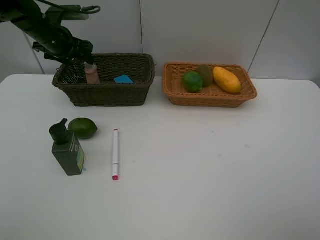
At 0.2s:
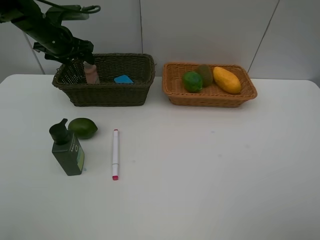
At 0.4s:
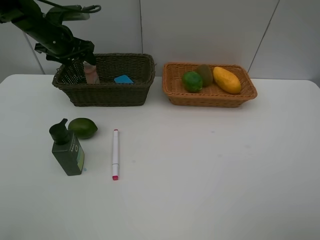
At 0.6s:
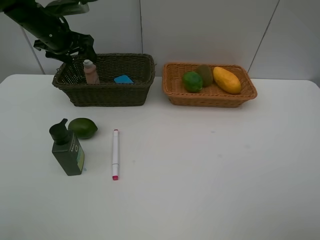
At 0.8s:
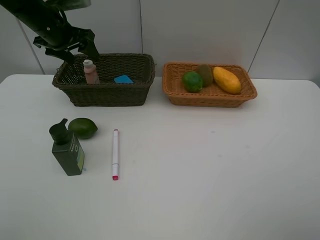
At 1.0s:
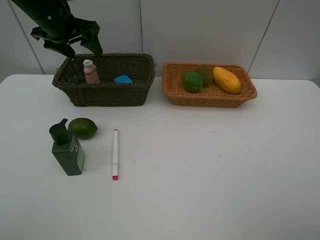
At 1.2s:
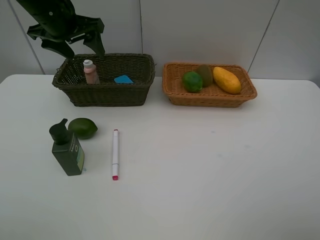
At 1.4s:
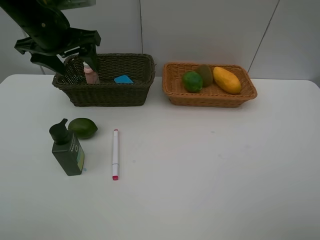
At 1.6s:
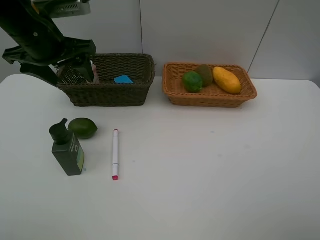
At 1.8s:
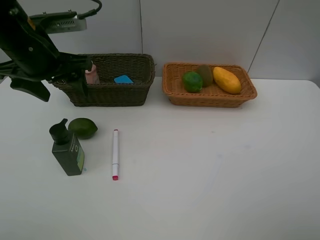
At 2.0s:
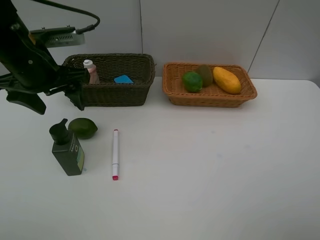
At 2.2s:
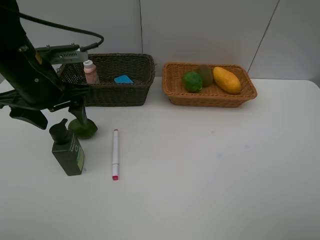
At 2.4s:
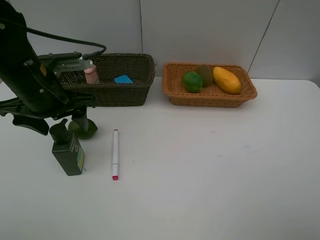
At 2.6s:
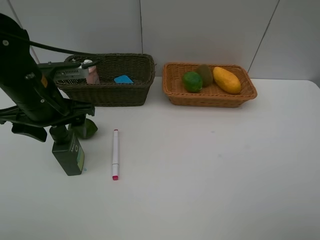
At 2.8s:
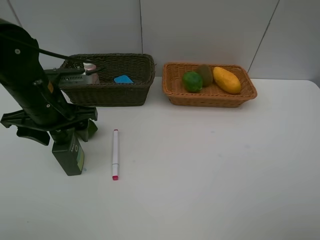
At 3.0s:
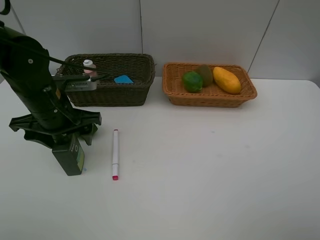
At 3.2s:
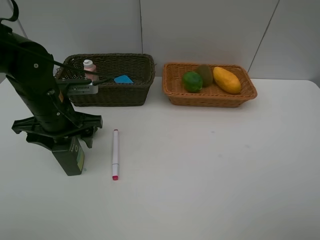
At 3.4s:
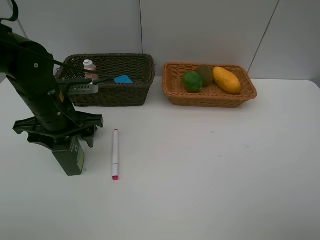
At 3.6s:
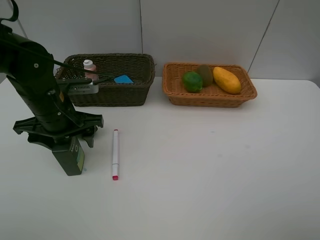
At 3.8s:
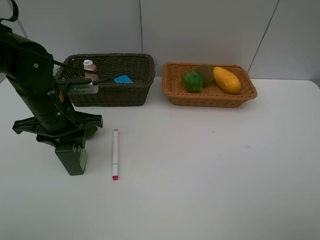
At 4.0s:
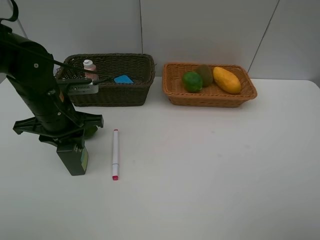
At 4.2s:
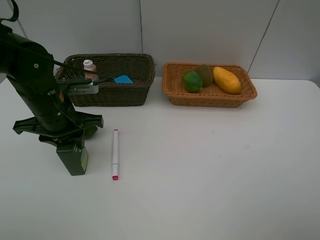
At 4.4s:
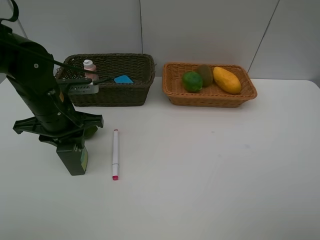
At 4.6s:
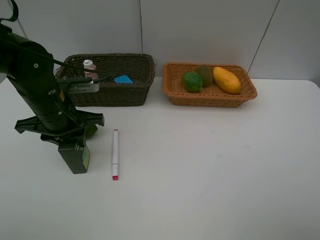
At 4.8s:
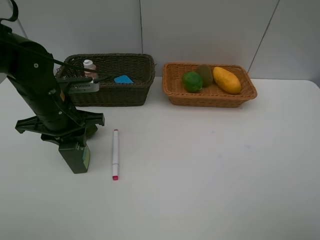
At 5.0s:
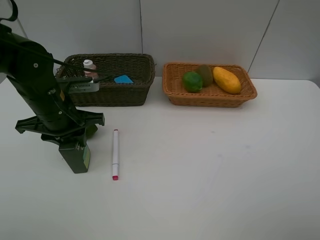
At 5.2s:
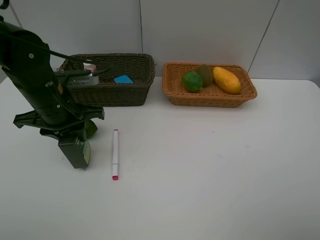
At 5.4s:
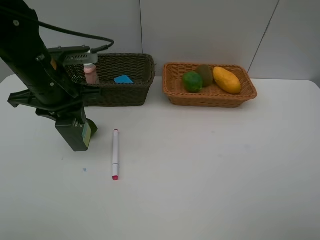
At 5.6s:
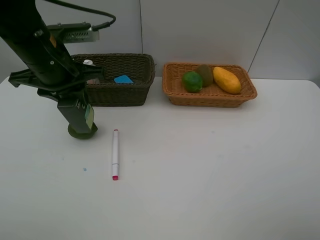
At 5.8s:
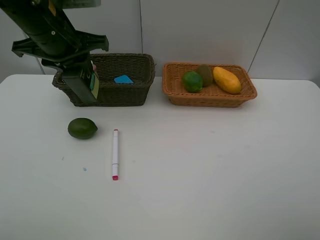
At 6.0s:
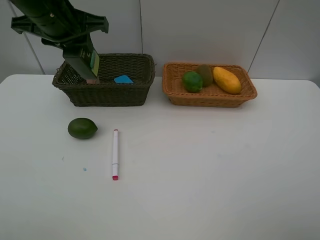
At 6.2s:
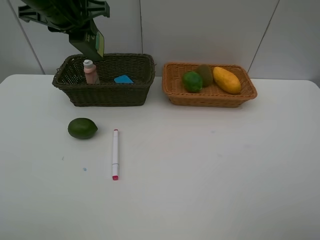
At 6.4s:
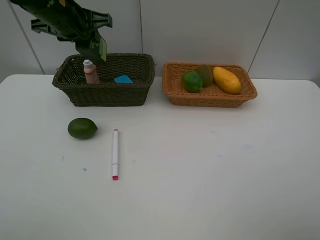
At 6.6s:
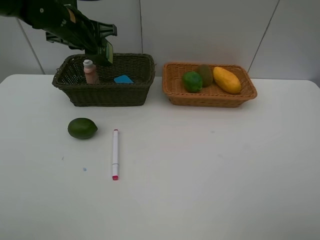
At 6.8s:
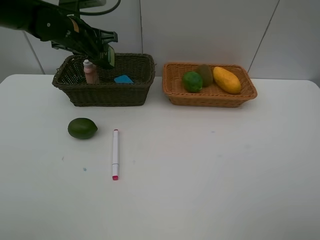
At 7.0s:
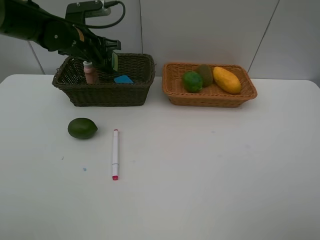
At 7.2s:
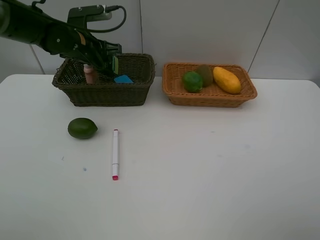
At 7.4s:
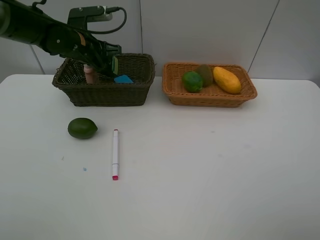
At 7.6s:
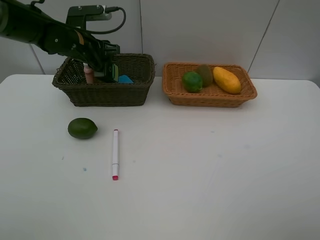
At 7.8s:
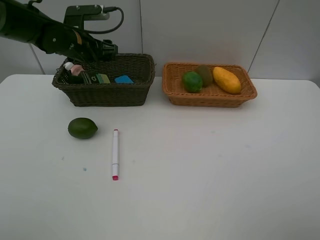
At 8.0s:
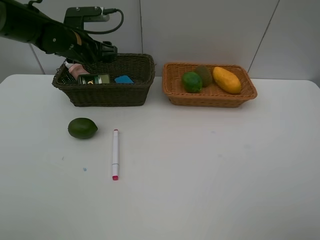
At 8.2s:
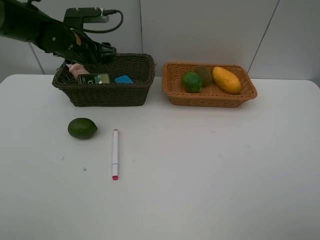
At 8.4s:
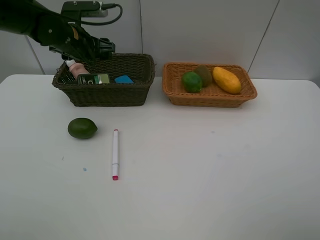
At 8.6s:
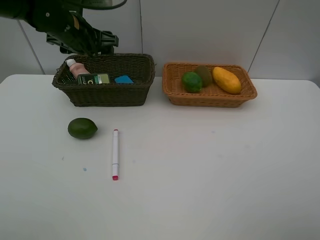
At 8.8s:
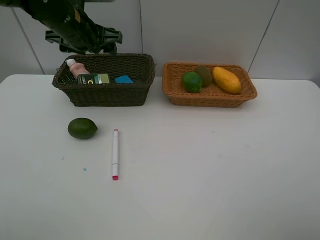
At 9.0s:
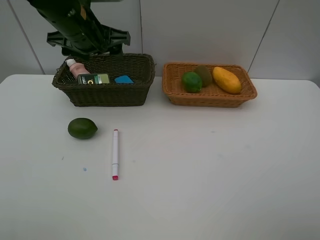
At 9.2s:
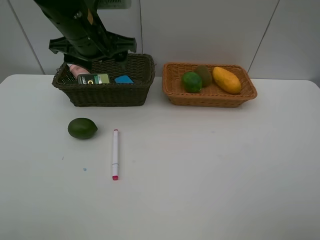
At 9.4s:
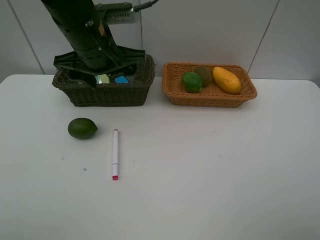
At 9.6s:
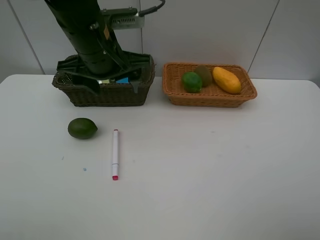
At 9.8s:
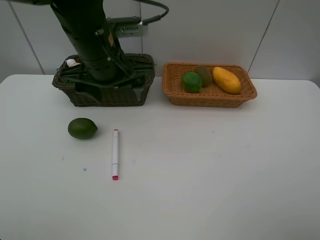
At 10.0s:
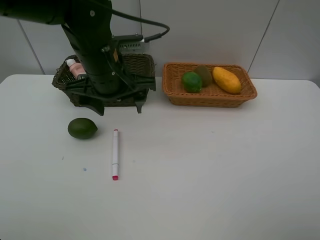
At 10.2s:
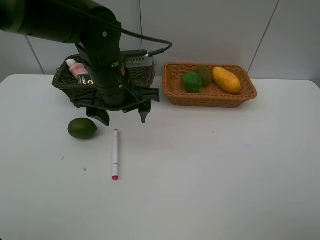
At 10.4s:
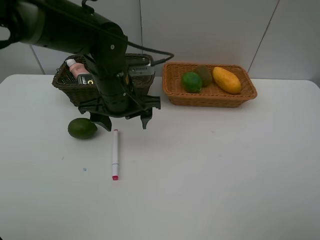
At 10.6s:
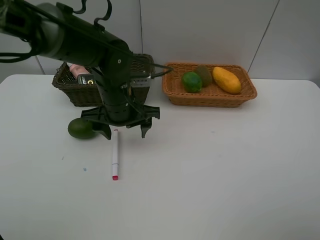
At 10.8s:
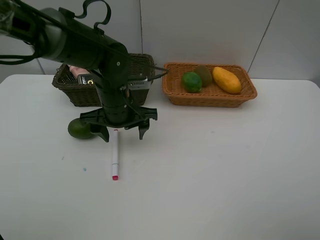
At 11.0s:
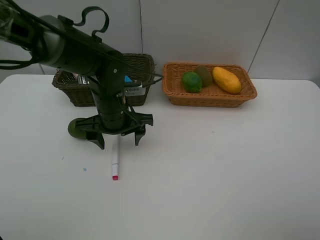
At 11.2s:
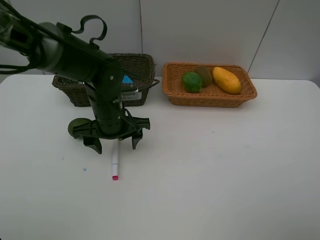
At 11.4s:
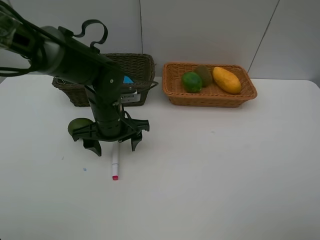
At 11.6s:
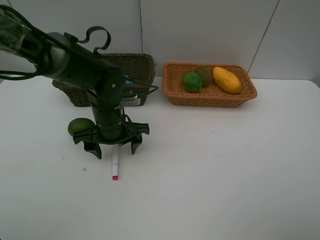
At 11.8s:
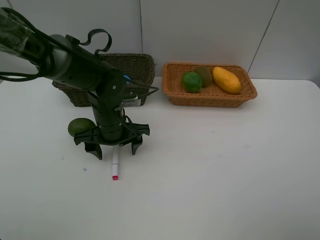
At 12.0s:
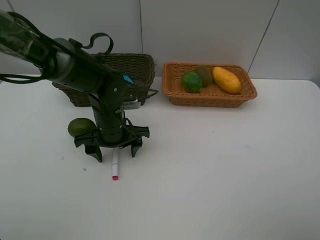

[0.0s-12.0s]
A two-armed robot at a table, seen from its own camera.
Task of the whole recording: Place multiple objects separately in different baskets.
Step, 0.6s to 5.4s: Pick up the hard facial cleanser with left gripper.
Step, 5.6s to 8.0s: Place the hard facial cleanser in the dark basket with left gripper.
0.0s to 1.6s: The left gripper moves backward, upward and to the right, approximately 20 cm.
1.6s to 3.0s: The left gripper is displaced downward by some 10 cm.
3.0s to 4.4s: The left gripper closes.
4.4s to 6.0s: The left gripper is displaced upward and forward by approximately 15 cm.
6.0s to 7.6s: The left gripper goes roughly 15 cm downward and forward, and opens up.
7.6s to 9.0s: The left gripper shifts about 15 cm backward, upward and to the right.
9.0s to 10.4s: The left gripper travels downward, to the right and backward by about 15 cm.
10.4s to 12.0s: The left gripper moves downward, approximately 10 cm.

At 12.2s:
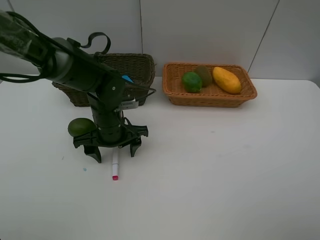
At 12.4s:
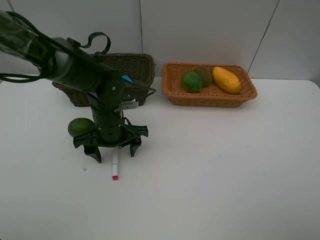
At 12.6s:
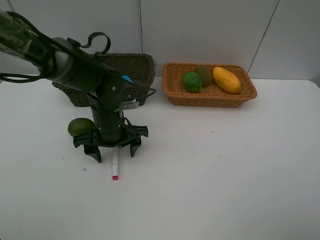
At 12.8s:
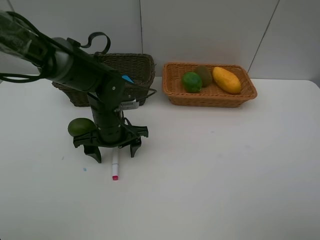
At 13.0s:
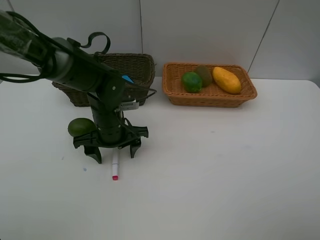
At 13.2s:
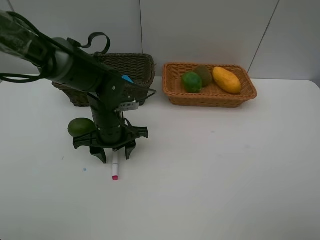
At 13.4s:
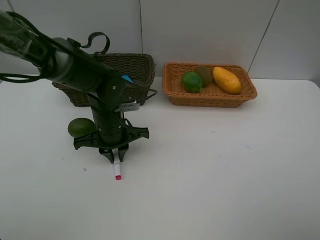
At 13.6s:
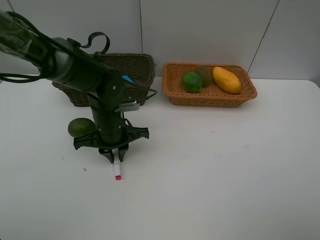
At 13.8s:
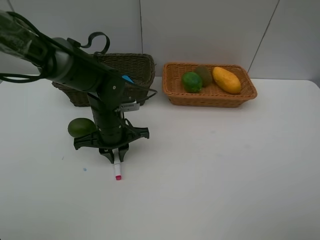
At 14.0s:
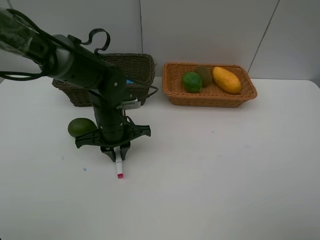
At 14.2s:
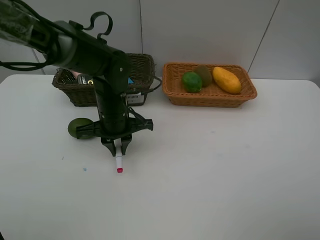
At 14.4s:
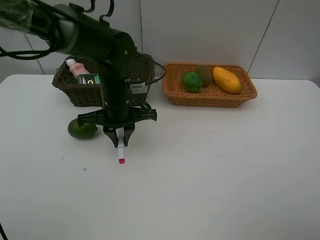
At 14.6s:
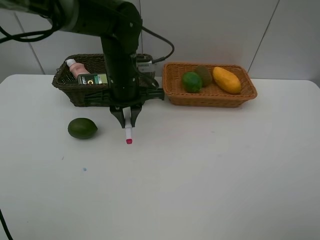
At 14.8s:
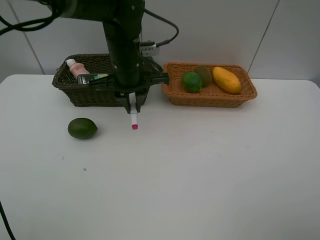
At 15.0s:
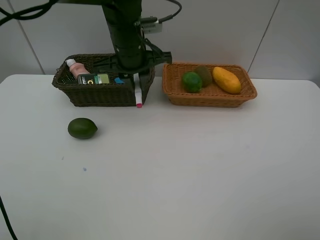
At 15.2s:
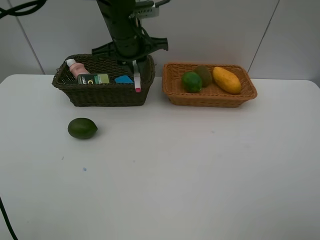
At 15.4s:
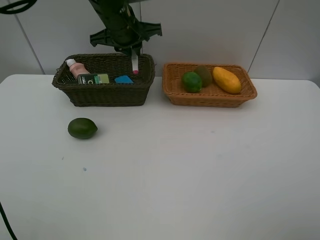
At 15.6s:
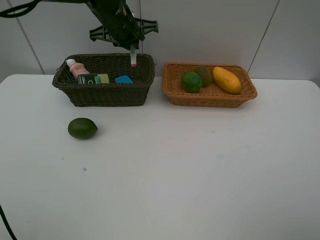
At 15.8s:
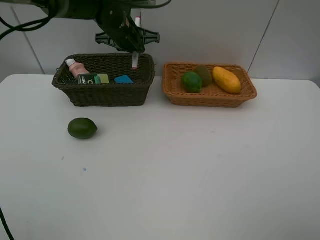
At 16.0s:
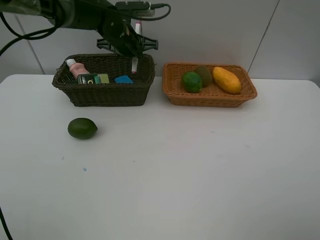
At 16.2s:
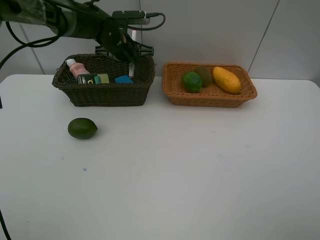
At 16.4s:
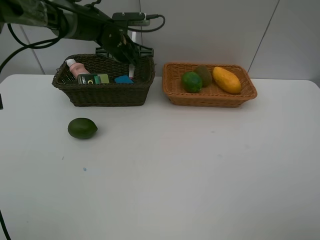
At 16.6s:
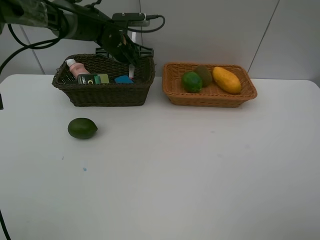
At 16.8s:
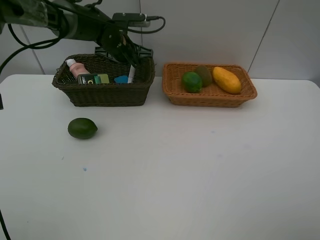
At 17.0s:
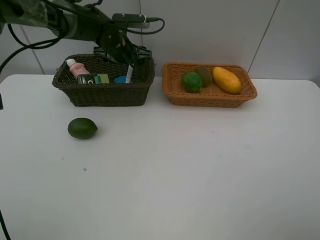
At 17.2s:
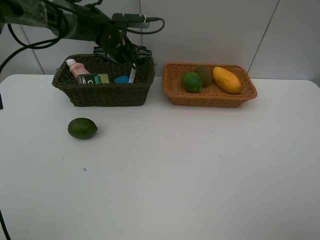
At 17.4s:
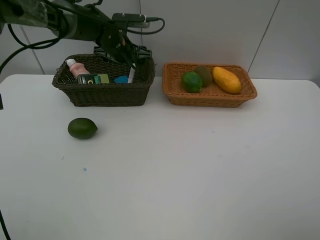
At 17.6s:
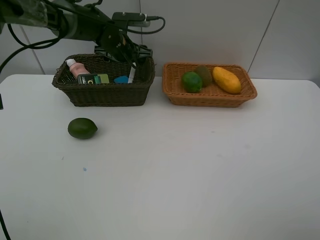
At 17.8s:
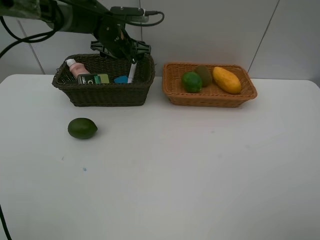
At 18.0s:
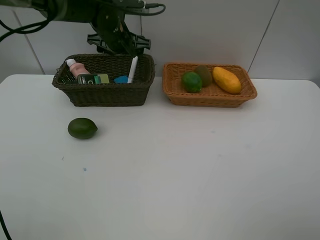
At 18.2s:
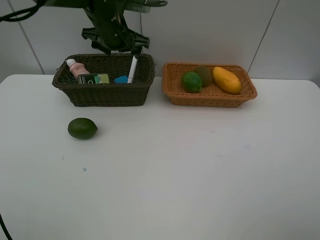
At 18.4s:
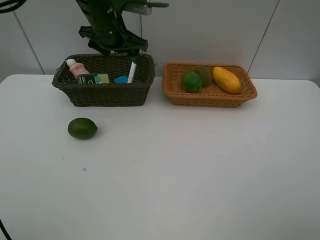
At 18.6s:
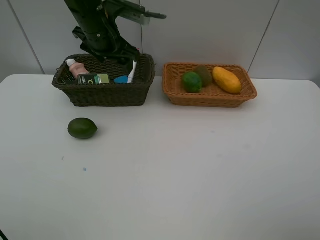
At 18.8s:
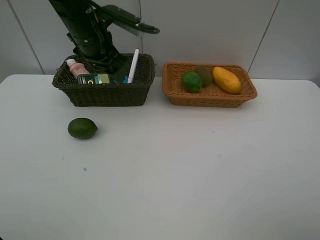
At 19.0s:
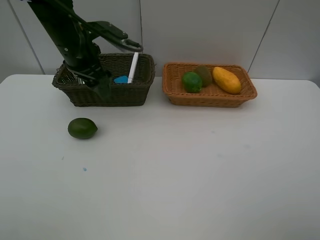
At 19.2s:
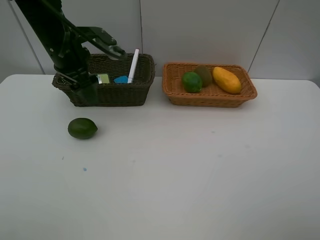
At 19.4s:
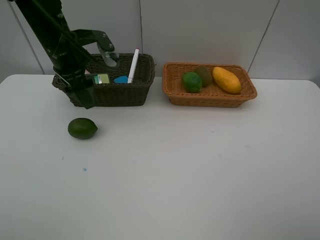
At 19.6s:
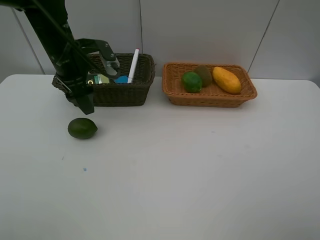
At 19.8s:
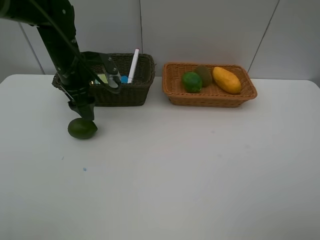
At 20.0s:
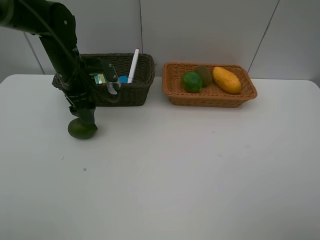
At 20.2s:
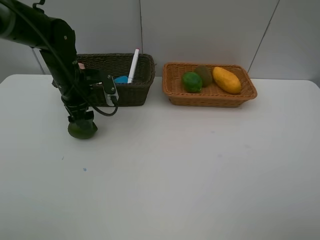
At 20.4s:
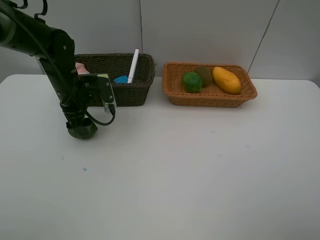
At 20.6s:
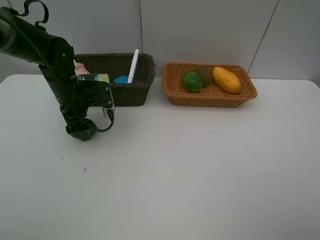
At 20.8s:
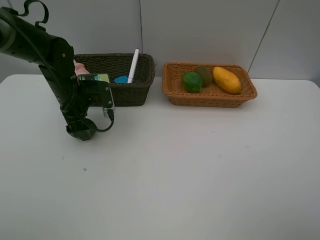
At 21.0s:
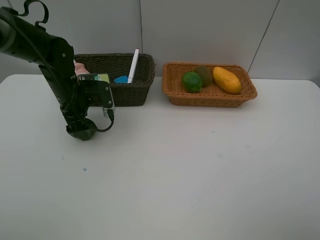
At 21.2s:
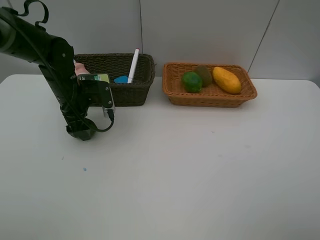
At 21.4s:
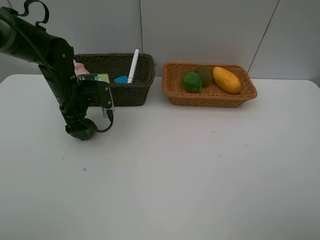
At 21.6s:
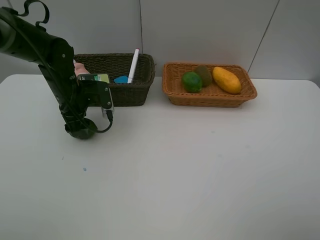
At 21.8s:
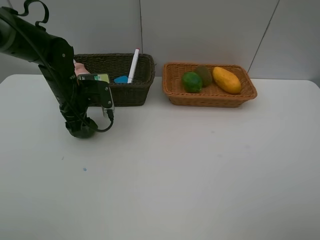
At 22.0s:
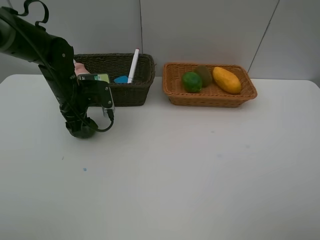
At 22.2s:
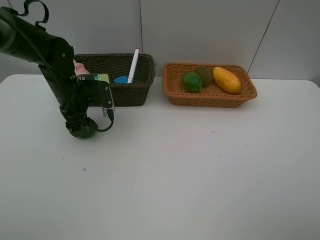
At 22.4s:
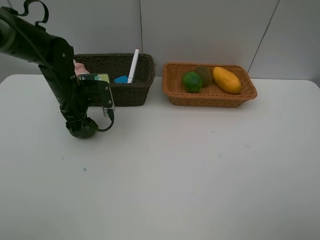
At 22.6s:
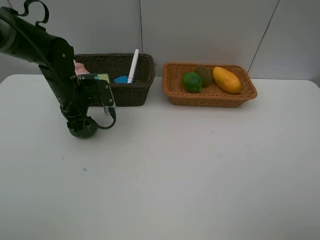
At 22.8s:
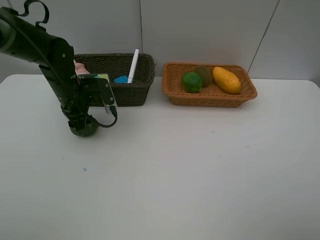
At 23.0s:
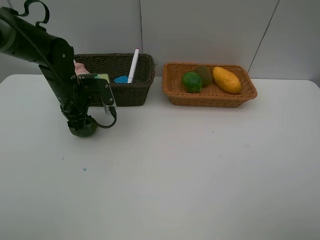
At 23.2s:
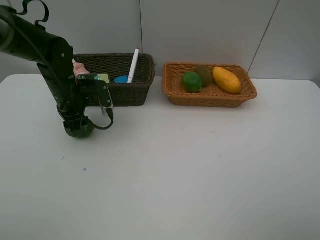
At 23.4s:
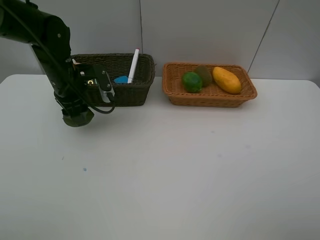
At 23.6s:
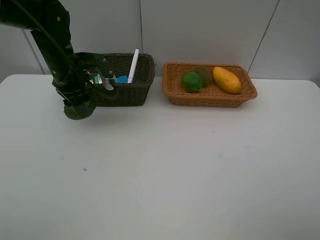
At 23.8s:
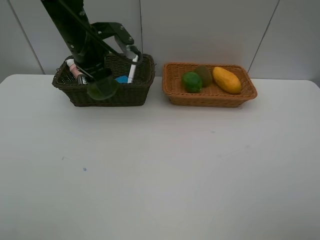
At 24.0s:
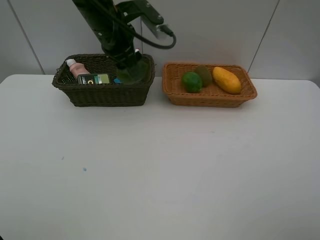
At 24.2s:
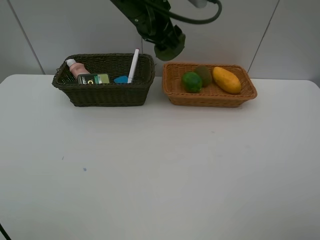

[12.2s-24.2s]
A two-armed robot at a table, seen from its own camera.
Task of the whole recording: Place multiple objects separately in different baskets.
Step, 12.2s to 14.2s: Pick up the red marker with left gripper.
Step, 14.4s to 17.6s: Place the red marker in the dark basket with left gripper.
Step, 17.8s to 23.4s: Pick up the lime with left gripper.
12.2s to 13.8s: The left gripper closes its fingers.
13.8s to 15.2s: The left gripper is displaced upward and forward by some 20 cm.
15.2s to 16.6s: The left gripper is displaced forward and downward by some 10 cm.
16.6s to 18.2s: The left gripper goes some 5 cm upward, and opens its fingers.
18.2s to 19.8s: The left gripper moves to the left, backward and downward, roughly 10 cm.
19.8s to 21.2s: The left gripper moves downward, about 5 cm.
21.2s to 22.6s: Both grippers stay put.
22.6s to 24.2s: The left gripper shifts about 25 cm upward and to the right.
